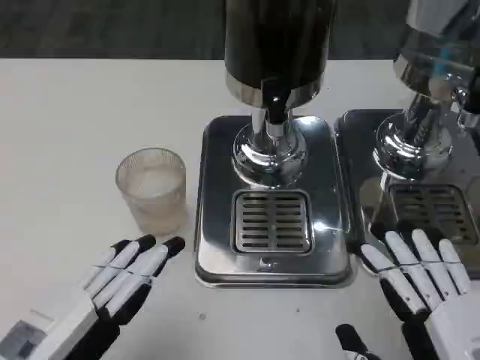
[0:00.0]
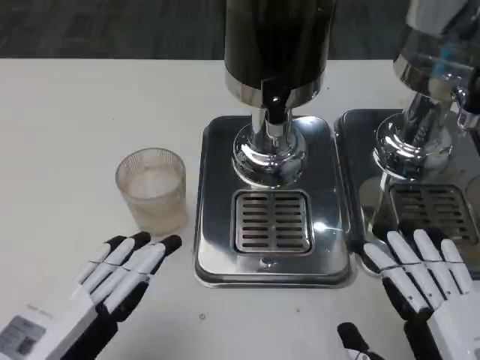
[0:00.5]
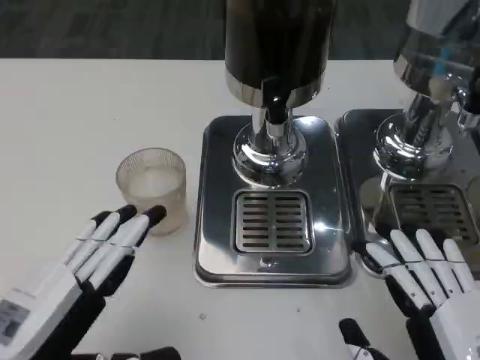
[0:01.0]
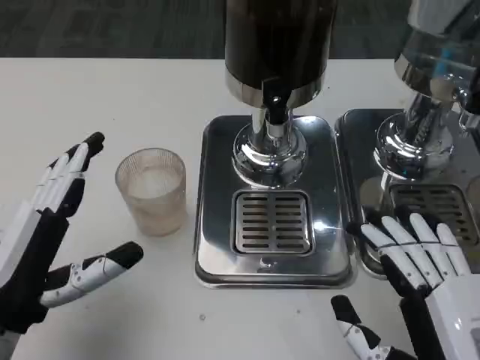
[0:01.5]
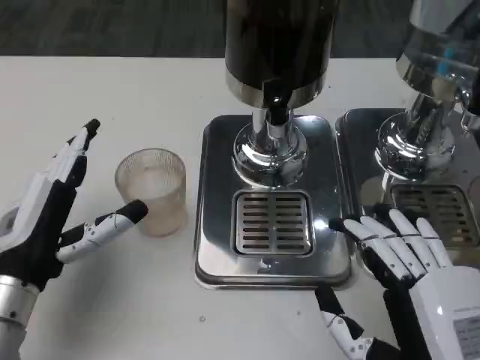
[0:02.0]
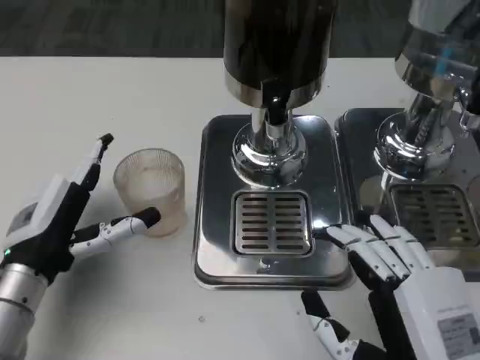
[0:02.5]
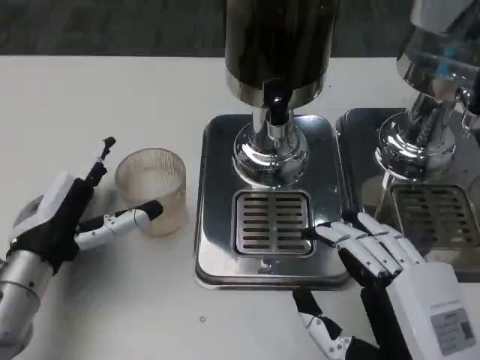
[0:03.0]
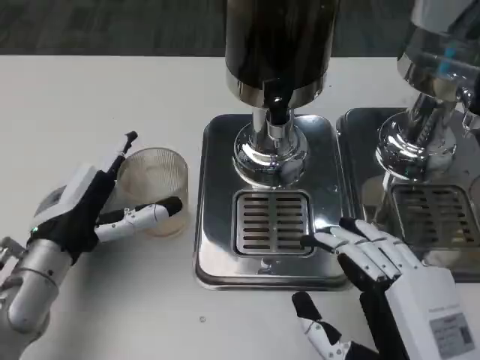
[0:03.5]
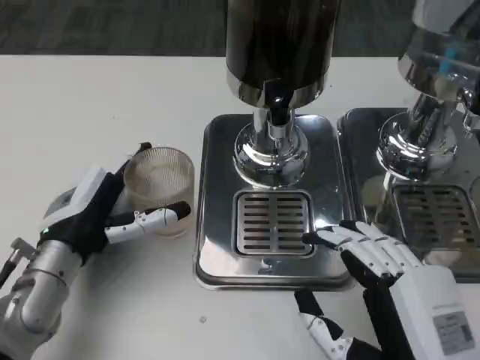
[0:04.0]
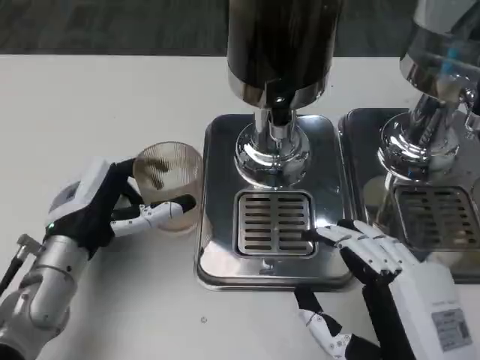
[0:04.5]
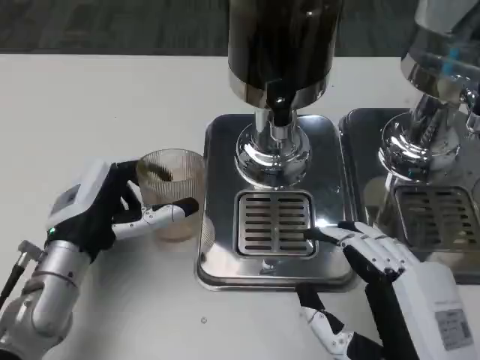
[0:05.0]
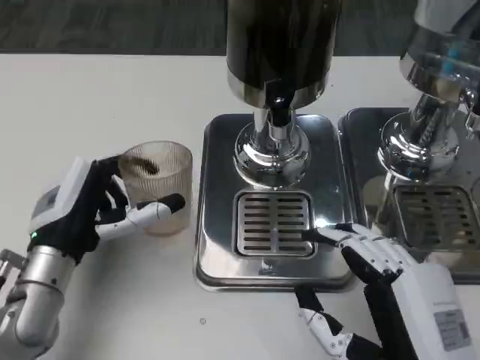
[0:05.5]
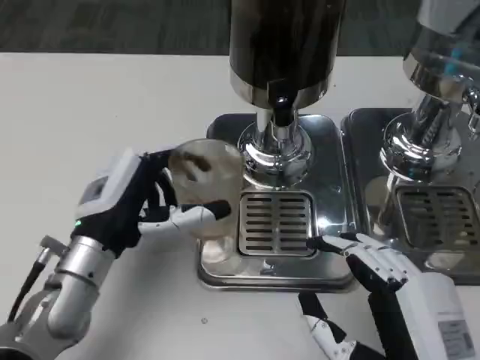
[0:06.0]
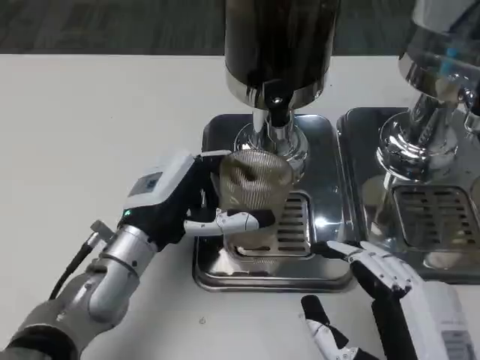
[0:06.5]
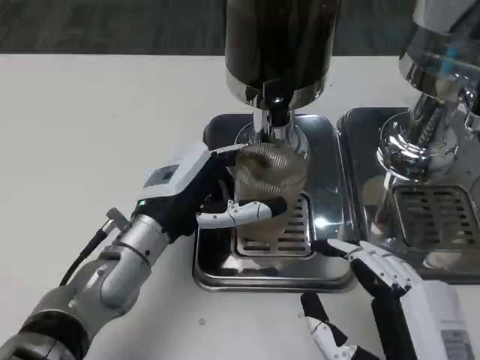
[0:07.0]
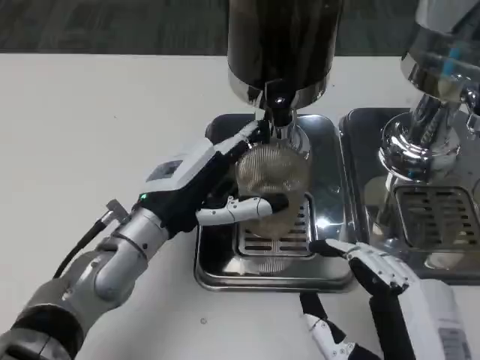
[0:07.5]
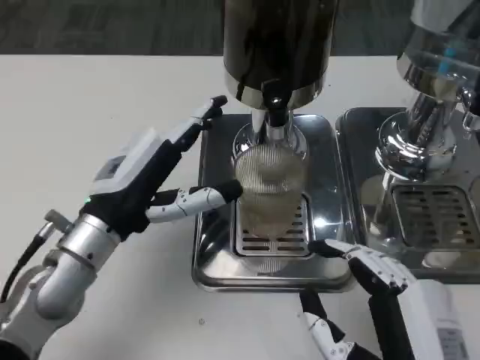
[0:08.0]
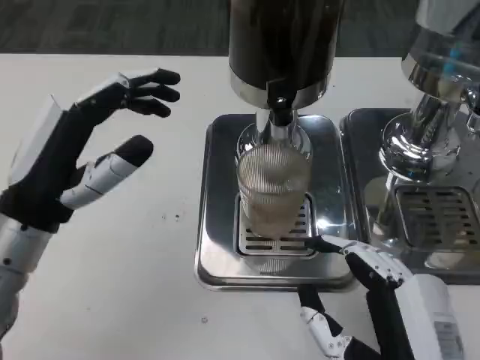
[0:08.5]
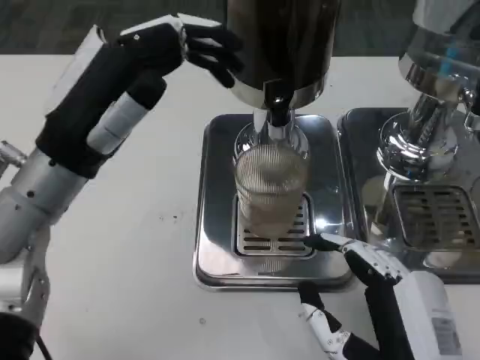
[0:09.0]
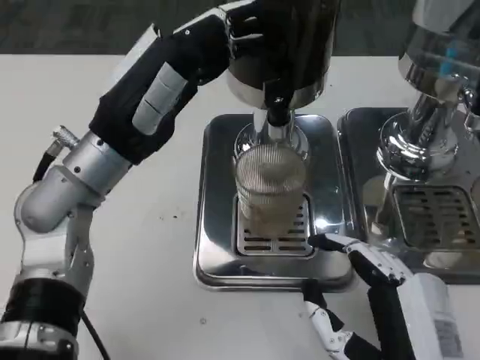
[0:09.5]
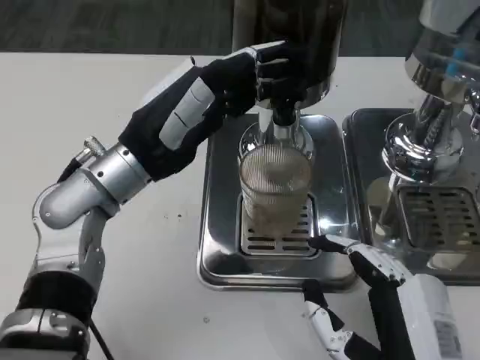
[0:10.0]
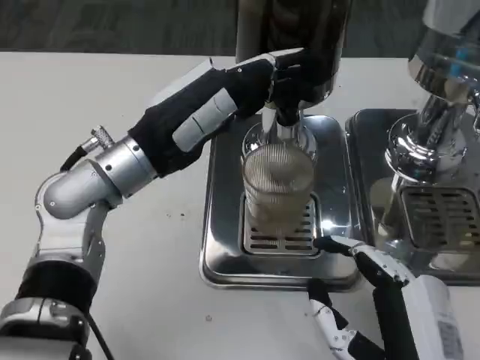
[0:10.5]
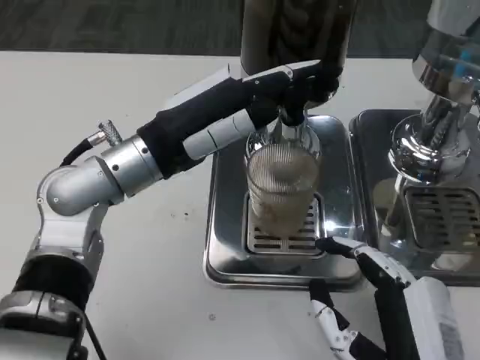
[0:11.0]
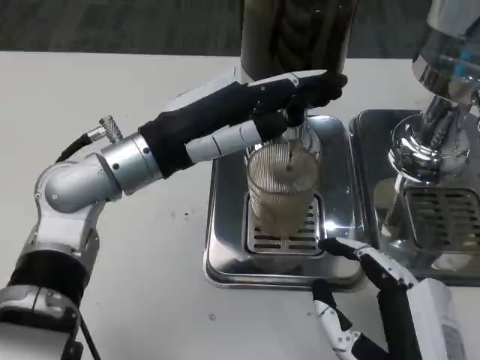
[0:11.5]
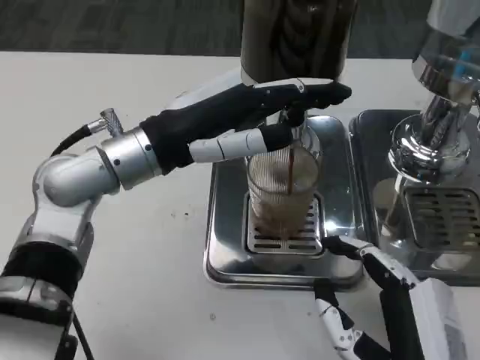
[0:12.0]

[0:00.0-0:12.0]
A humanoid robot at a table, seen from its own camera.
Task of the whole recording: Grasp the cup under the faucet to collect the drink, then remove the cup.
0:00.0 to 0:02.0: The left hand shifts some 10 cm forward.
0:02.0 to 0:04.0: The left hand moves some 5 cm.
0:08.0 to 0:10.0: The left hand is displaced forward and upward by some 10 cm.

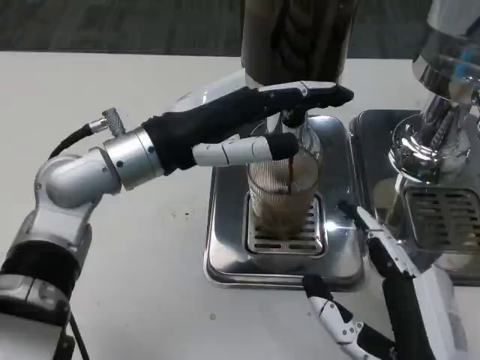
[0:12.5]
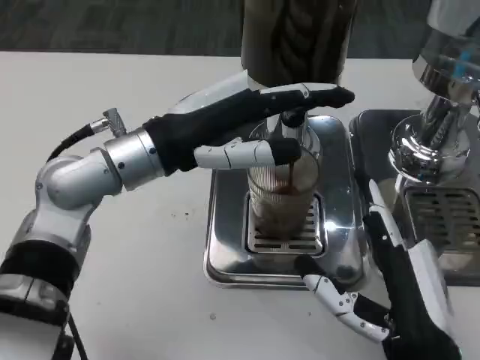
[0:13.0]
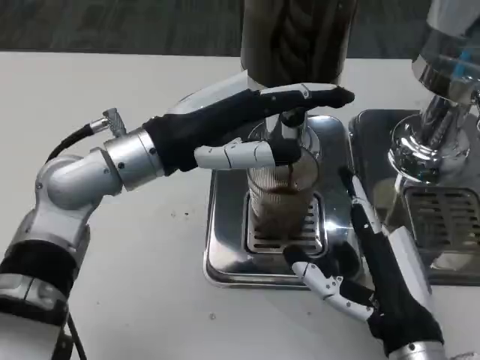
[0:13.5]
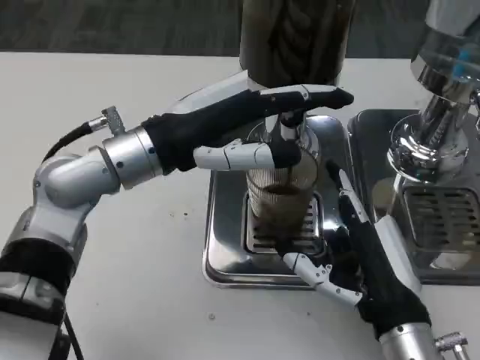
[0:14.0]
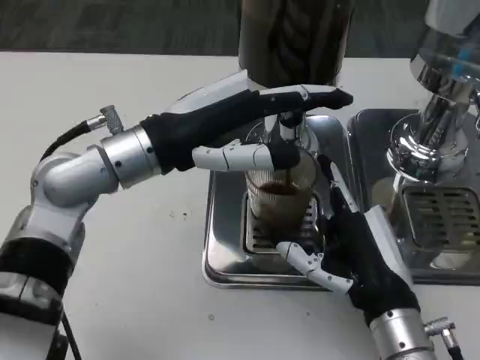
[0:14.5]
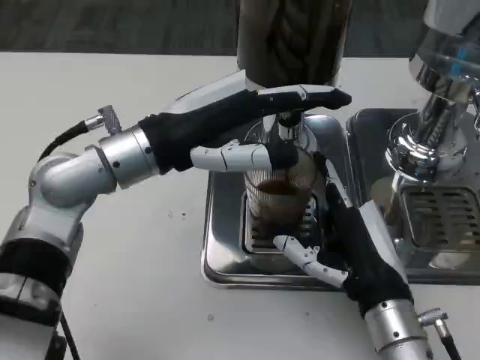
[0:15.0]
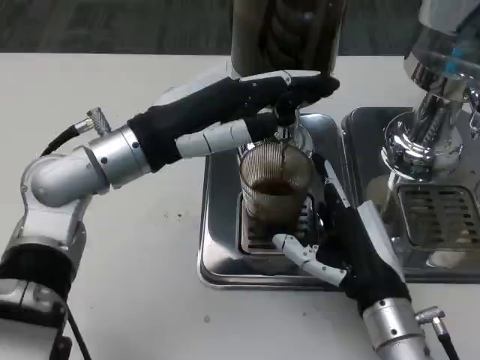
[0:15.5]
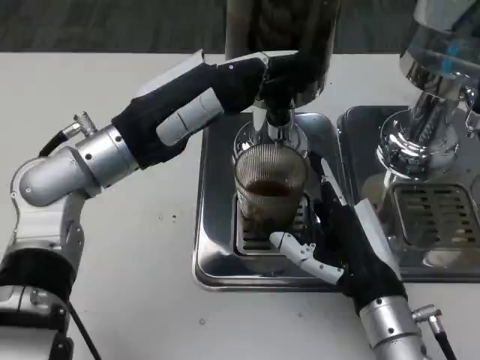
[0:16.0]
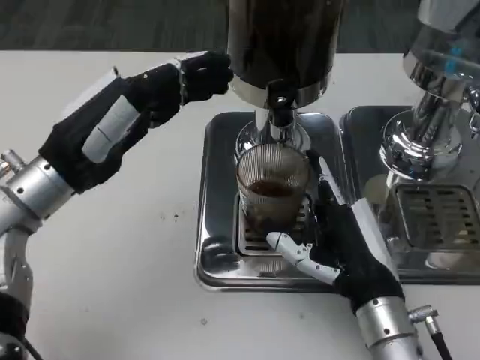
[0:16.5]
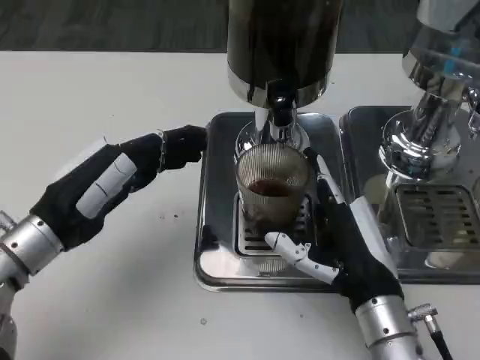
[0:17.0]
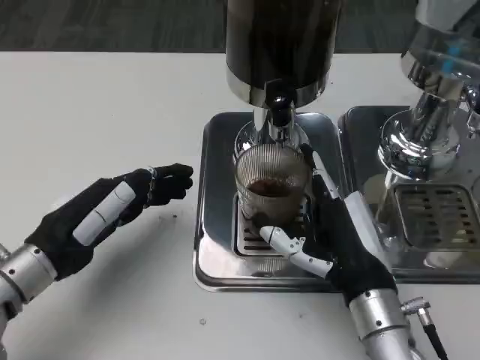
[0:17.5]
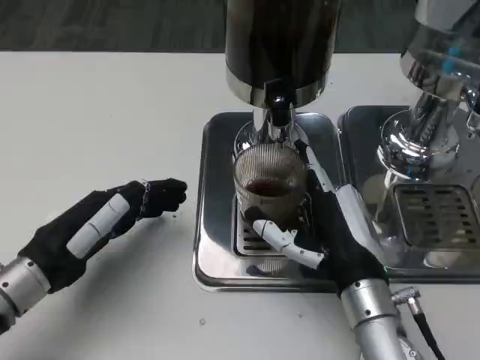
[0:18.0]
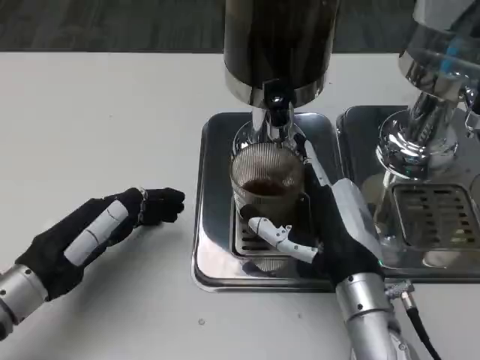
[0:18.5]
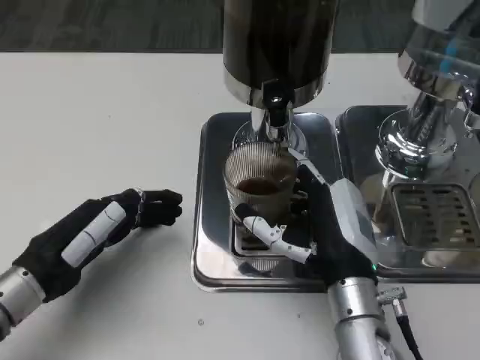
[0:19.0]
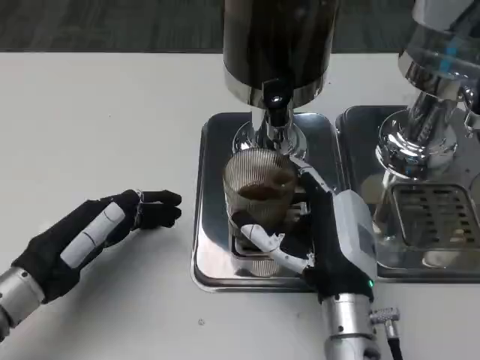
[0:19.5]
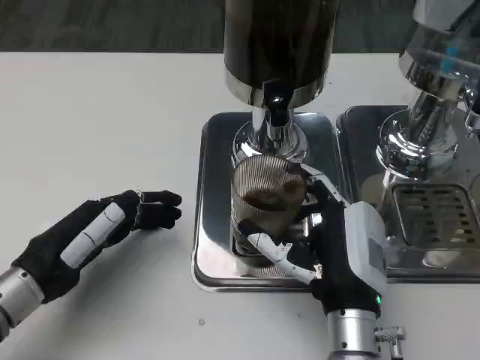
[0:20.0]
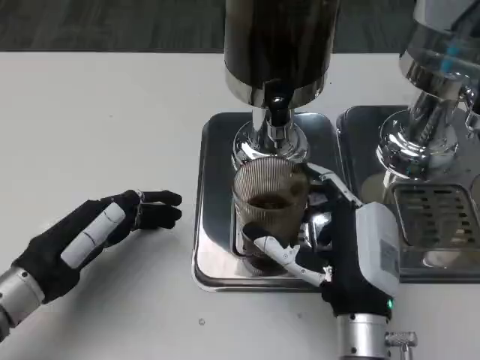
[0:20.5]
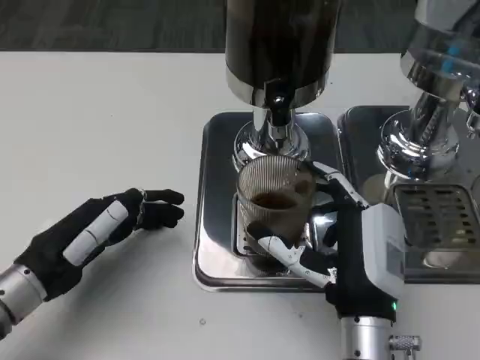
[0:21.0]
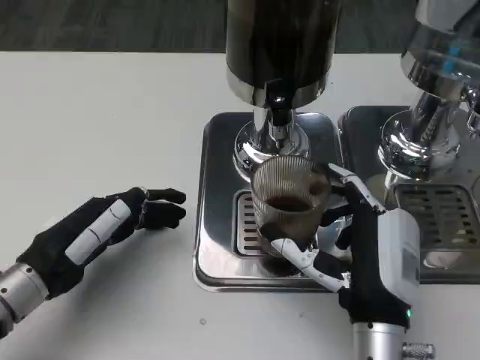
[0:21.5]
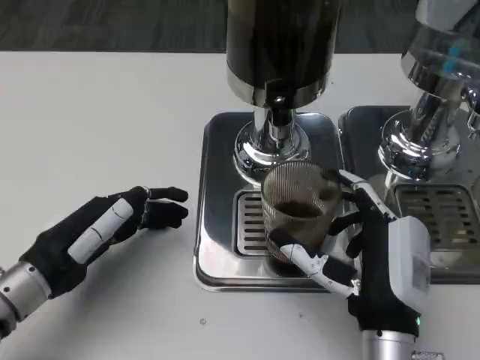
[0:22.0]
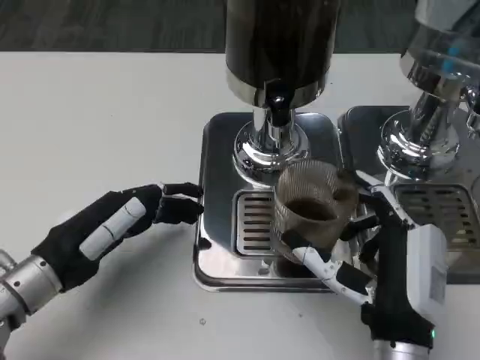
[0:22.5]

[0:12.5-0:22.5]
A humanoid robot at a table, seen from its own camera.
Task of the whole recording: Grasp the cup under the faucet to collect the drink, then remove the cup.
0:12.5 to 0:14.5: The right hand shifts about 10 cm forward.
0:14.5 to 0:16.5: The left hand goes about 10 cm to the left.
0:16.5 to 0:18.5: The left hand is displaced downward and backward by some 10 cm.
0:18.5 to 0:20.5: The hands stay close to where they were, moving slightly.

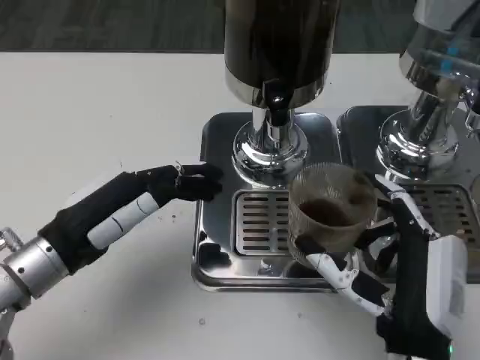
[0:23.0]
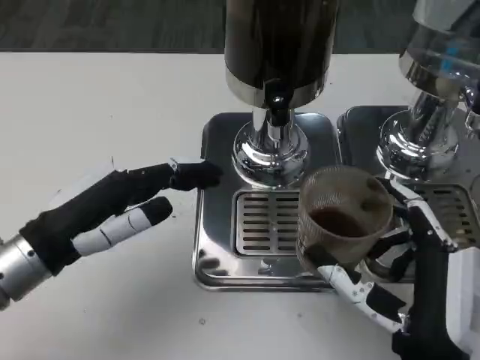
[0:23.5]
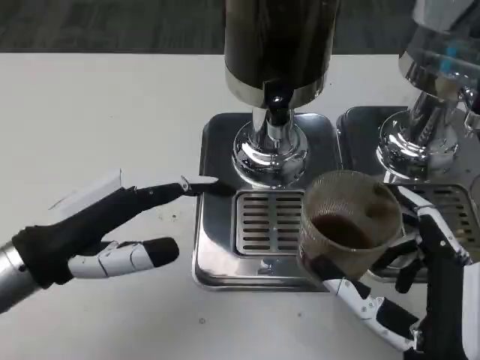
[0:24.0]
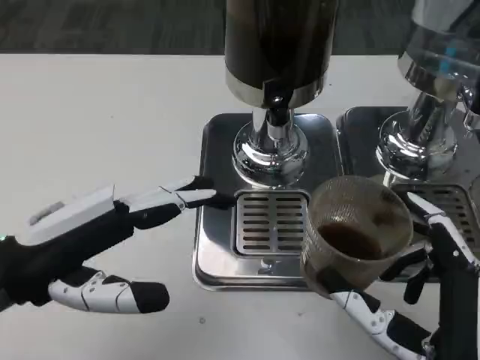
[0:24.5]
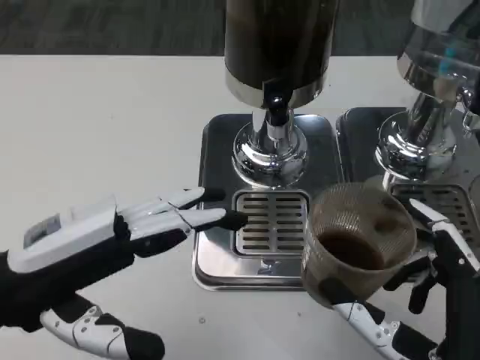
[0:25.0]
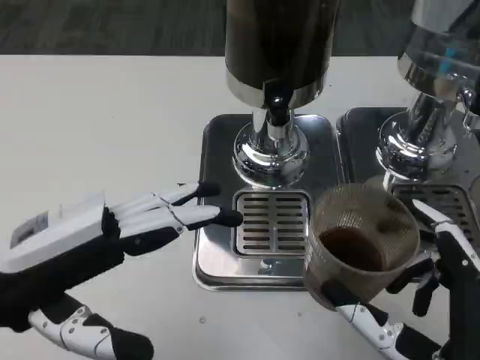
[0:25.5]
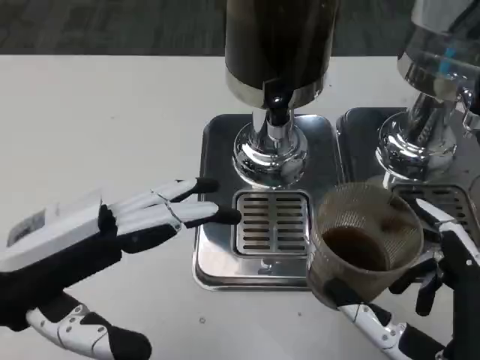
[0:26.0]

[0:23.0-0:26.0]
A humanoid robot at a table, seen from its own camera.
Task of the whole recording: Grasp the cup under the faucet to collect the drink, then remove the cup.
0:23.0 to 0:24.5: The right hand goes about 5 cm backward. The left hand moves upward, roughly 5 cm.
0:24.5 to 0:26.0: There are only small adjustments of the hands.

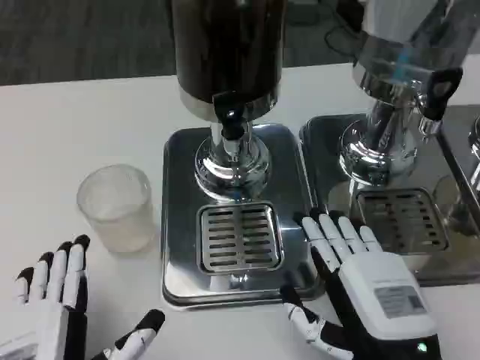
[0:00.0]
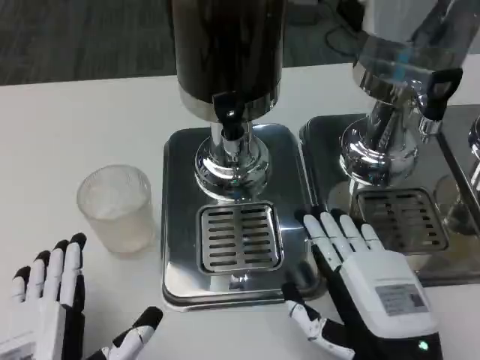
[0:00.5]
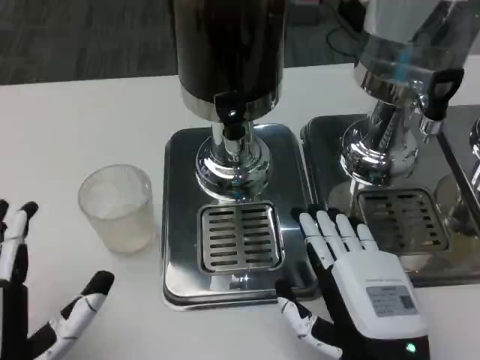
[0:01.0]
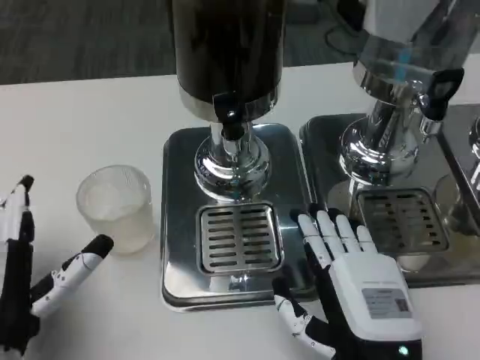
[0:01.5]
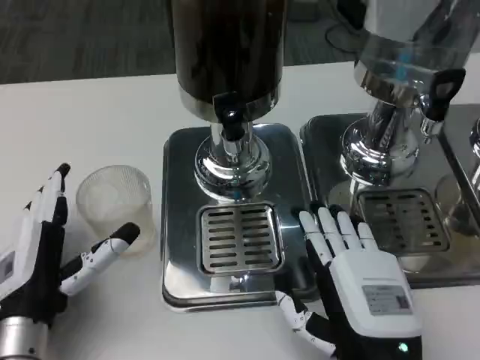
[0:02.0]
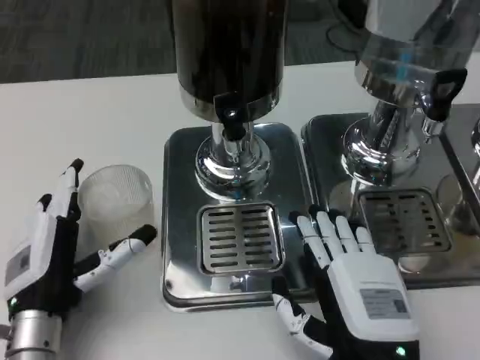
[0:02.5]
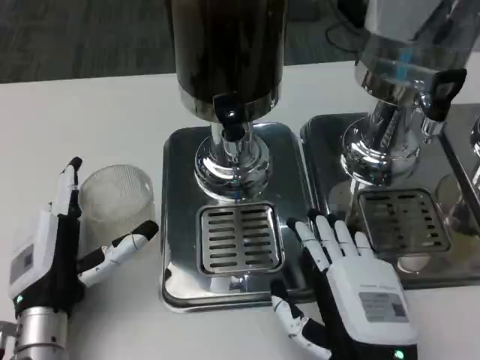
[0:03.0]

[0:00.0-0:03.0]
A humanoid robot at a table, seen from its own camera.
Task of the whole recording: Grasp the cup under the faucet to collect the drink, then remove the cup.
0:00.0 to 0:01.5: The left hand moves forward and to the left, roughly 10 cm.
0:01.5 to 0:03.0: The left hand shifts by approximately 5 cm.
